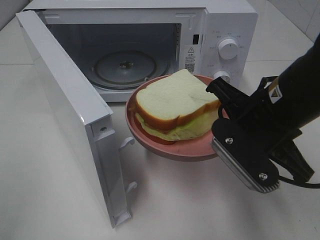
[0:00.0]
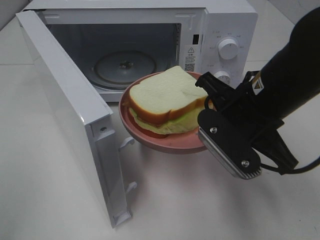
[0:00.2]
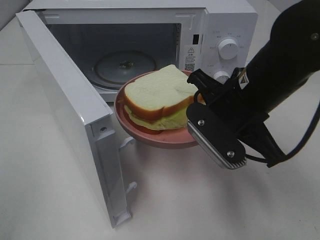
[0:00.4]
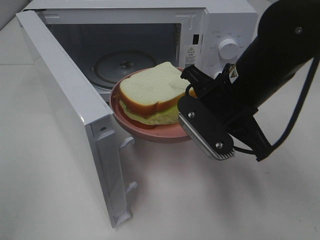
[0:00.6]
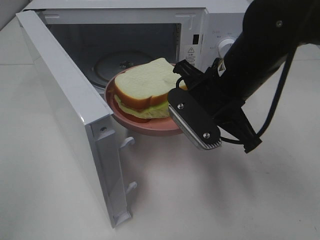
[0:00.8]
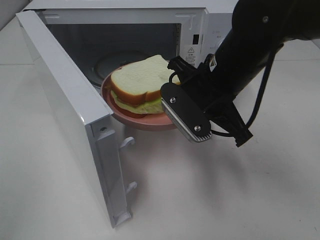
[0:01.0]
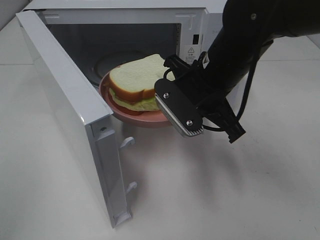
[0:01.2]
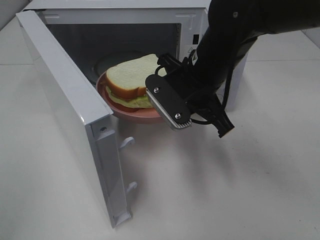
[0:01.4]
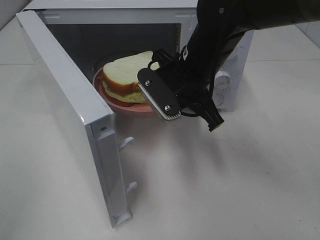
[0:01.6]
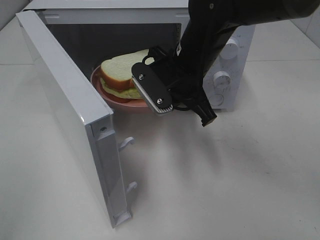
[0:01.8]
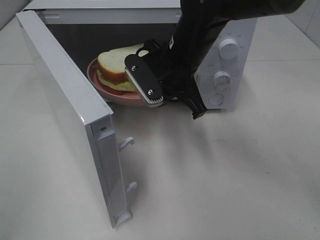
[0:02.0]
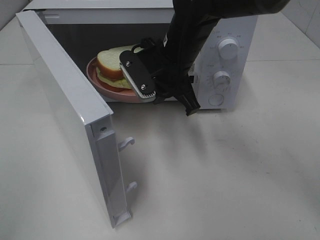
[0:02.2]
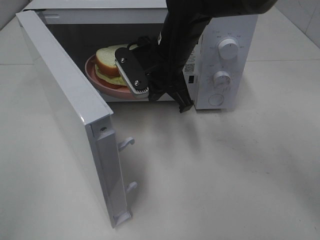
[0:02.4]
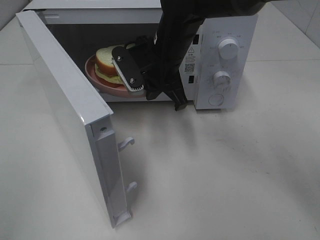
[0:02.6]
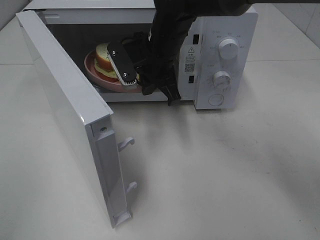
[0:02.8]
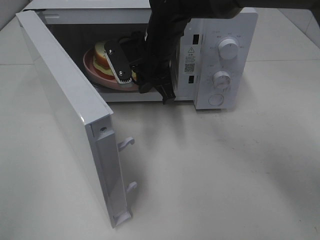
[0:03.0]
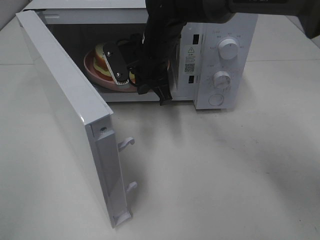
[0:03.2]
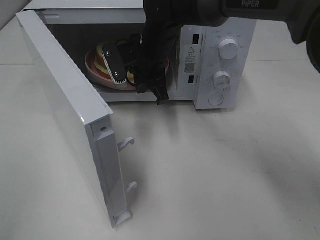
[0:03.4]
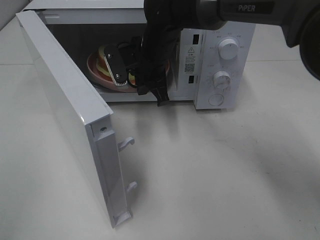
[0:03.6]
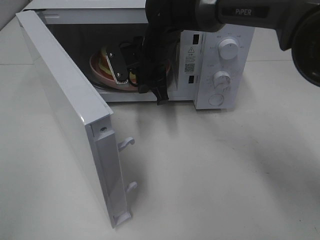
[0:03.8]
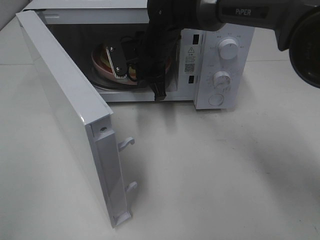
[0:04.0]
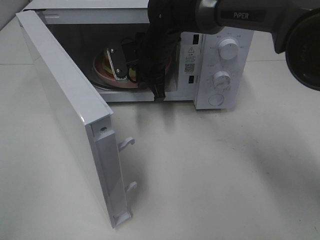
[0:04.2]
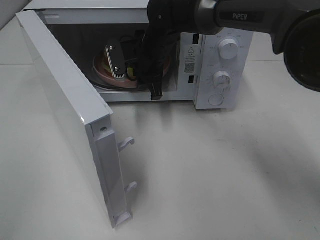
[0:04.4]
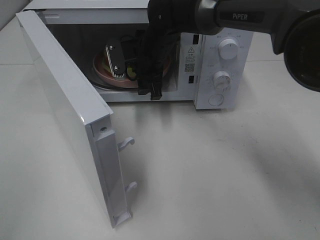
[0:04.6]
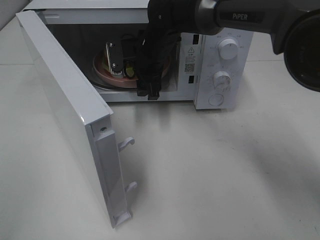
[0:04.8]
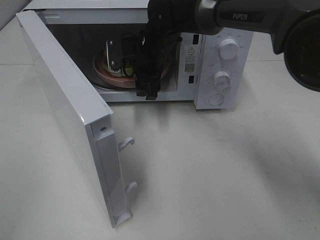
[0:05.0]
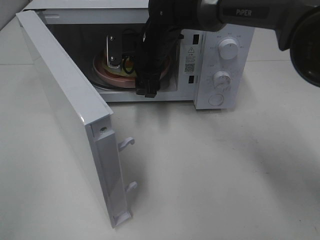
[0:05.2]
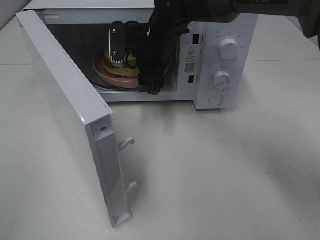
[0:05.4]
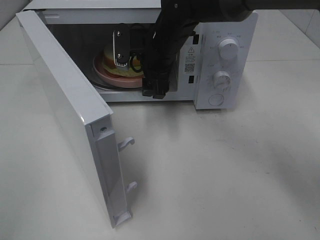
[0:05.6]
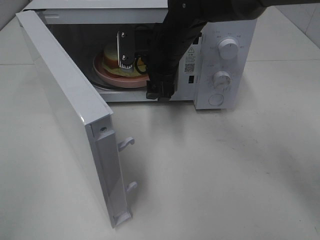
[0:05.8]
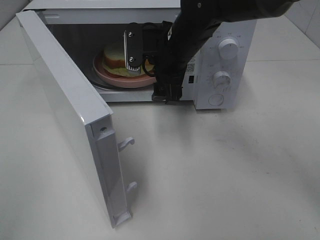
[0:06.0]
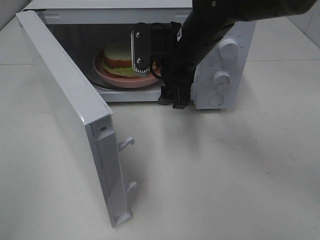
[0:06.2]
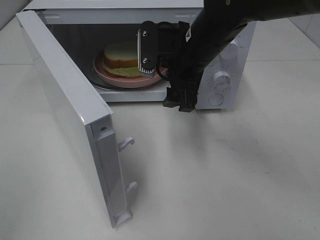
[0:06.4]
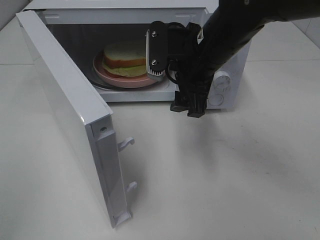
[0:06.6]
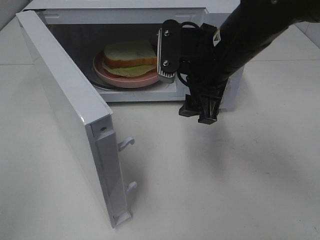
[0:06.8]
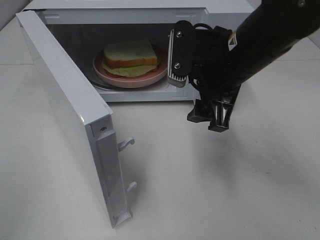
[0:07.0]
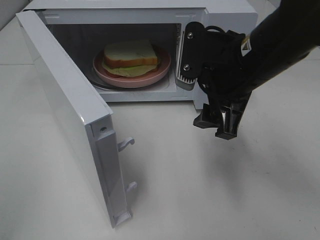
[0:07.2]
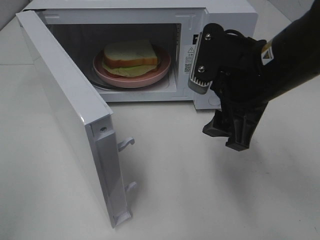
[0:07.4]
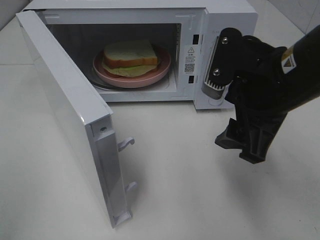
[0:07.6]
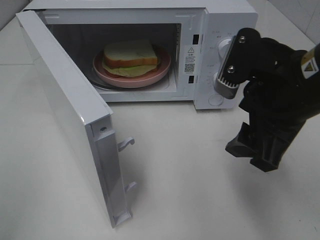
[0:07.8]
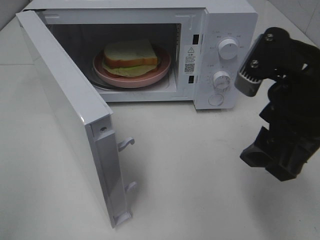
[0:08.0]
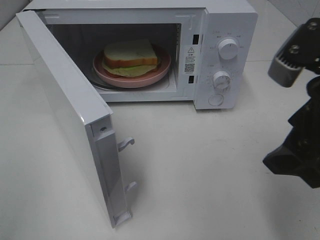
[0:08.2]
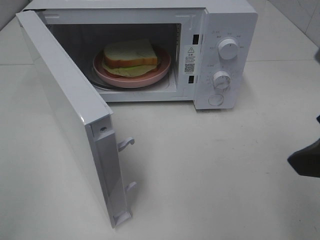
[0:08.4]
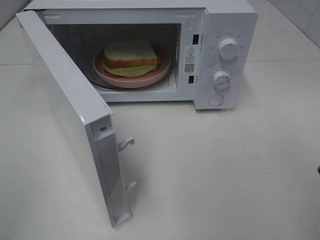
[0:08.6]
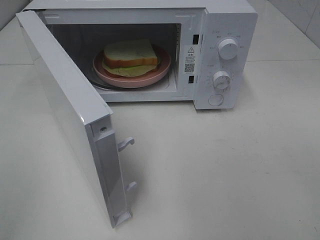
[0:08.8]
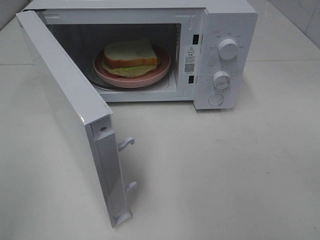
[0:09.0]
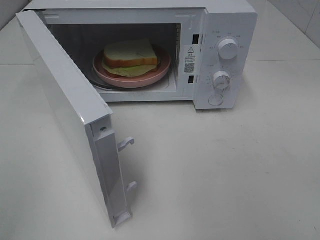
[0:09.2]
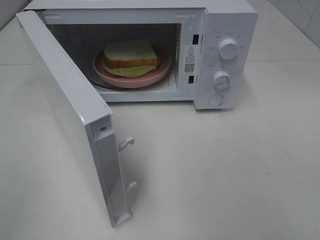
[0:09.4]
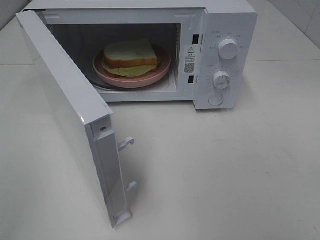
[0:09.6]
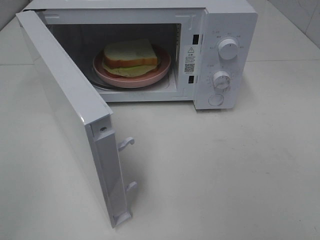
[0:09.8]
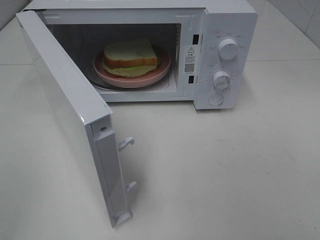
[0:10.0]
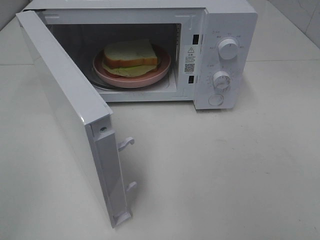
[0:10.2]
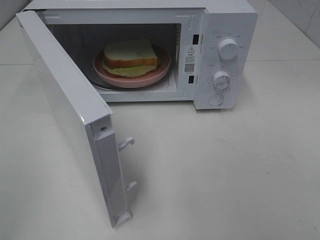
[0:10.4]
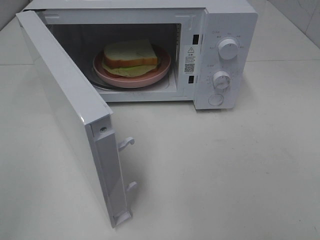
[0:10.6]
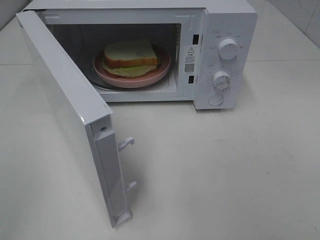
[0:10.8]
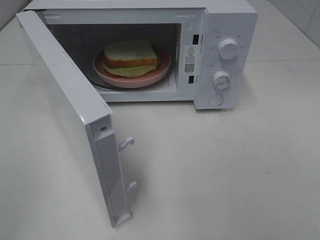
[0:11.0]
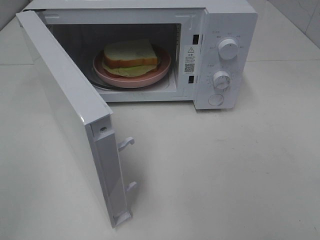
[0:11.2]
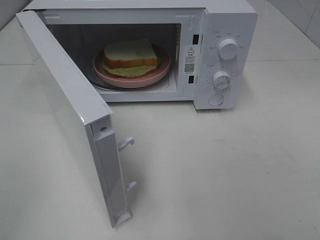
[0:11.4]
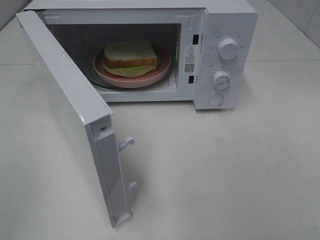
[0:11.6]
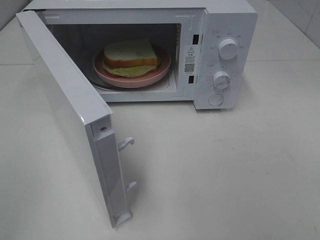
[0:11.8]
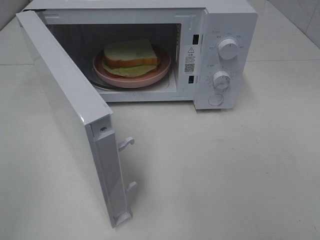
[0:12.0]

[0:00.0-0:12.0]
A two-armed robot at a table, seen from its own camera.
Task of the whole recording: Heat Sandwich.
Step, 0:00.0 to 0:05.4: Right hand: place the plate in the microwave.
0:00.0 to 0:01.6: The right gripper travels forward and to the left by some 15 cm.
0:01.6 to 0:03.0: The right gripper heads forward and to the left, covering some 10 cm.
0:03.0 to 0:04.4: The right gripper moves approximately 5 cm, and opens up.
0:04.4 to 0:06.0: The right gripper moves backward, roughly 5 cm, and opens.
0:06.0 to 0:07.6: The right gripper shifts some 20 cm backward and to the right.
0:07.6 to 0:09.0: The right gripper moves backward, to the right and upward, some 20 cm.
0:10.4 to 0:12.0: Neither gripper changes place.

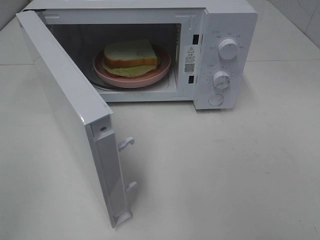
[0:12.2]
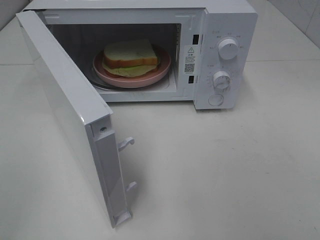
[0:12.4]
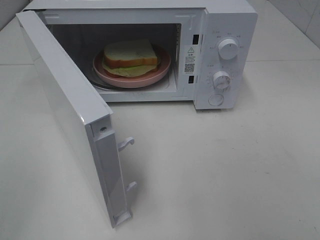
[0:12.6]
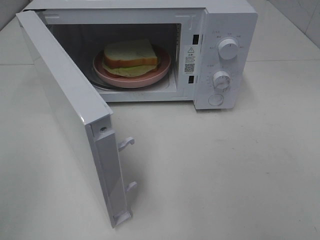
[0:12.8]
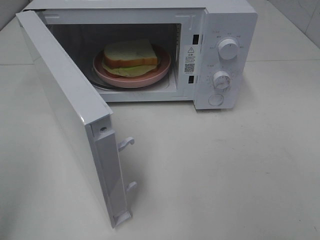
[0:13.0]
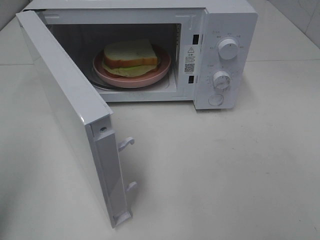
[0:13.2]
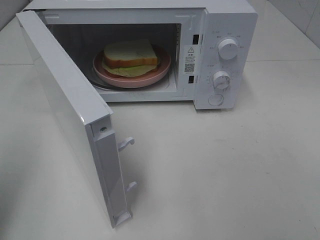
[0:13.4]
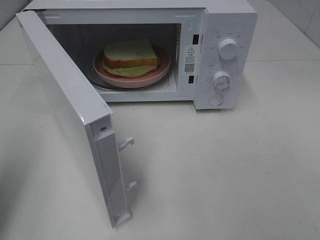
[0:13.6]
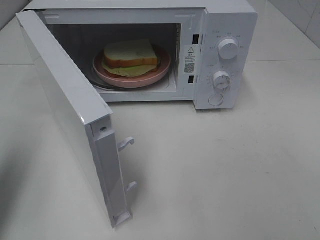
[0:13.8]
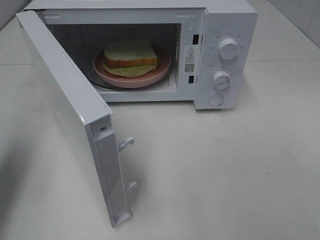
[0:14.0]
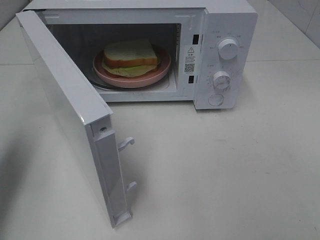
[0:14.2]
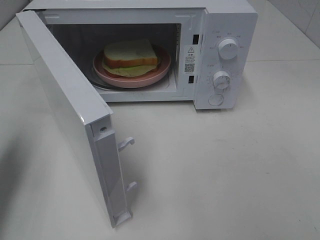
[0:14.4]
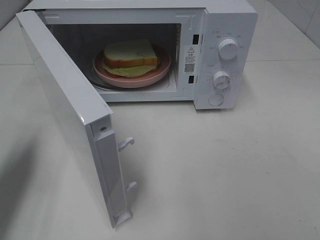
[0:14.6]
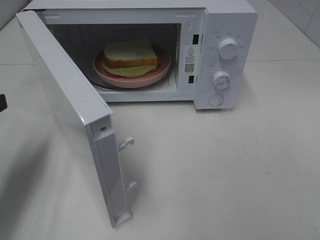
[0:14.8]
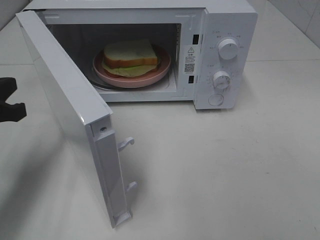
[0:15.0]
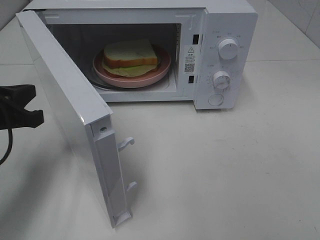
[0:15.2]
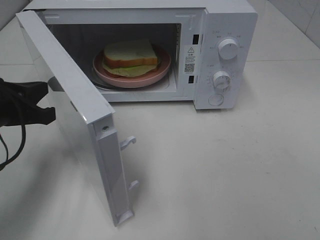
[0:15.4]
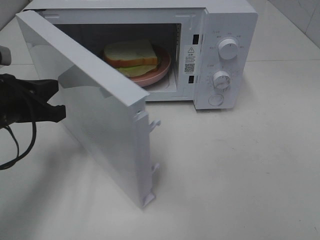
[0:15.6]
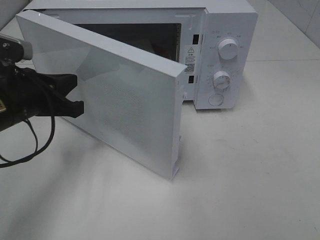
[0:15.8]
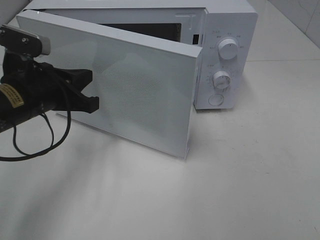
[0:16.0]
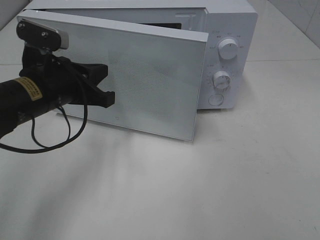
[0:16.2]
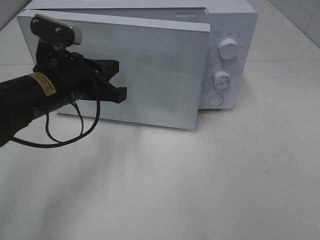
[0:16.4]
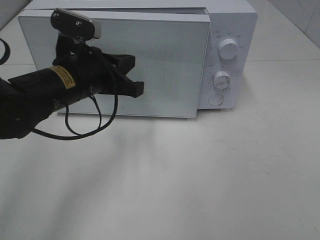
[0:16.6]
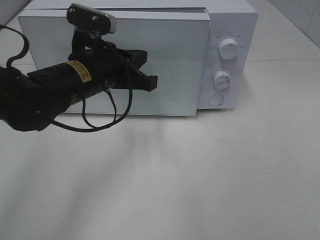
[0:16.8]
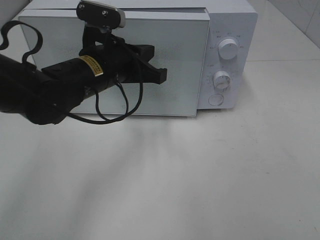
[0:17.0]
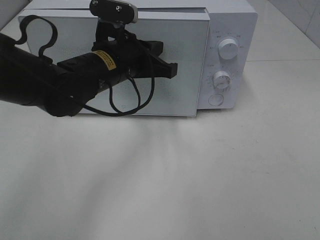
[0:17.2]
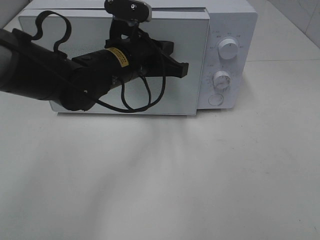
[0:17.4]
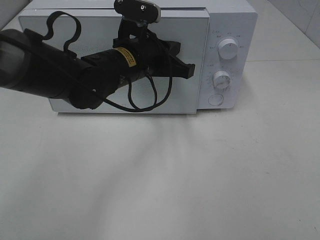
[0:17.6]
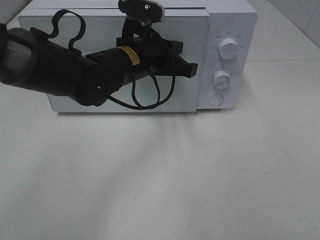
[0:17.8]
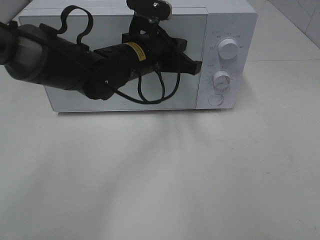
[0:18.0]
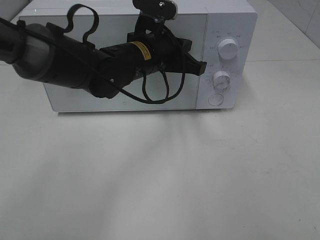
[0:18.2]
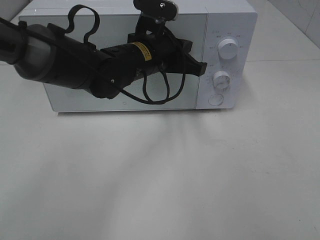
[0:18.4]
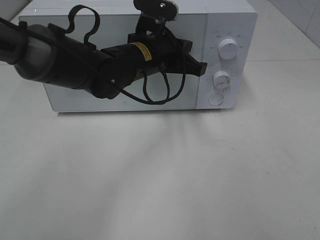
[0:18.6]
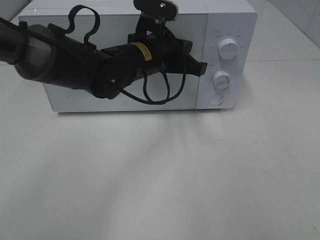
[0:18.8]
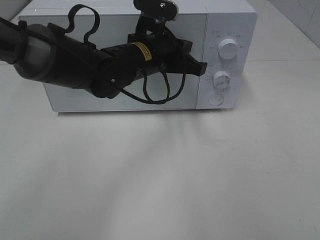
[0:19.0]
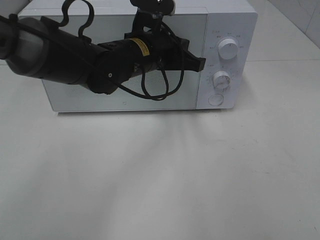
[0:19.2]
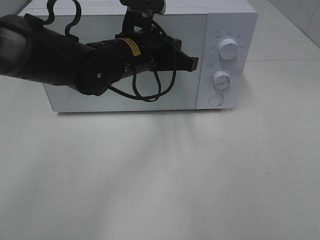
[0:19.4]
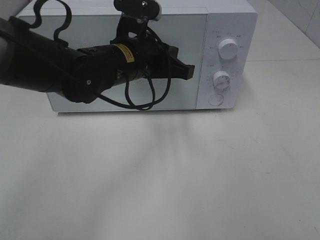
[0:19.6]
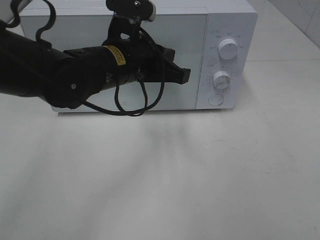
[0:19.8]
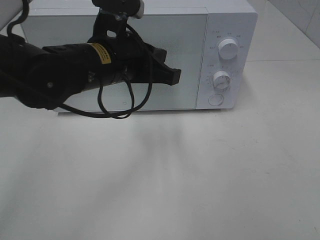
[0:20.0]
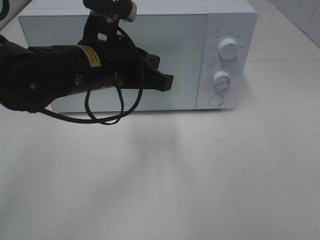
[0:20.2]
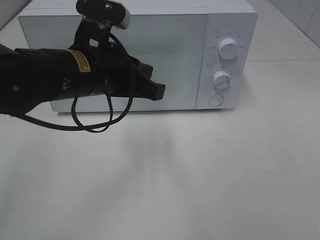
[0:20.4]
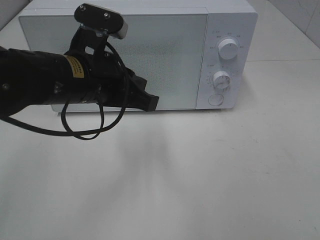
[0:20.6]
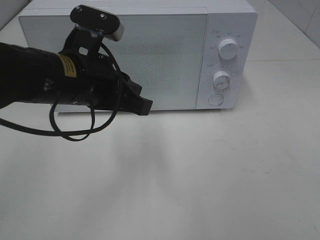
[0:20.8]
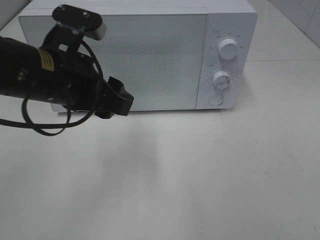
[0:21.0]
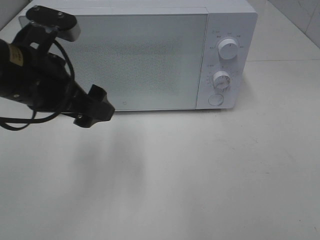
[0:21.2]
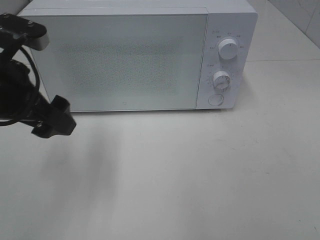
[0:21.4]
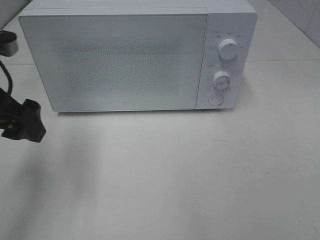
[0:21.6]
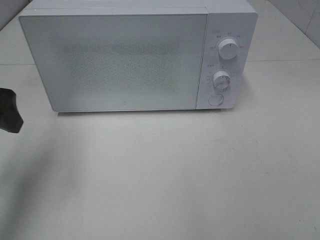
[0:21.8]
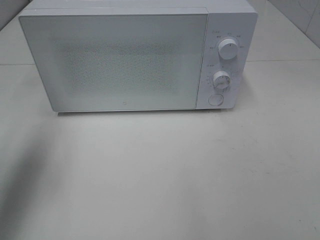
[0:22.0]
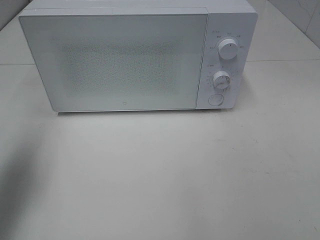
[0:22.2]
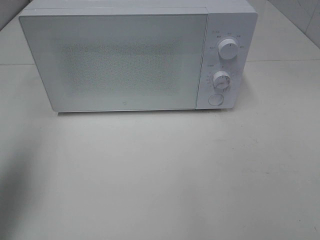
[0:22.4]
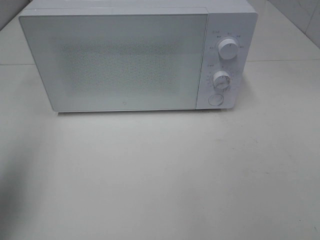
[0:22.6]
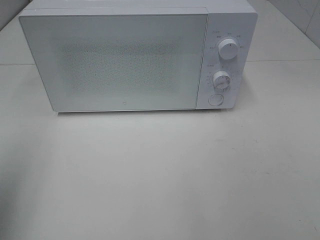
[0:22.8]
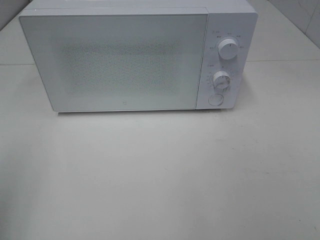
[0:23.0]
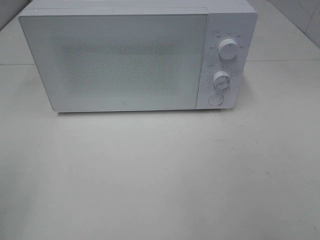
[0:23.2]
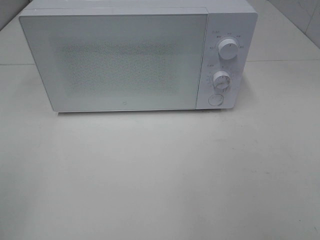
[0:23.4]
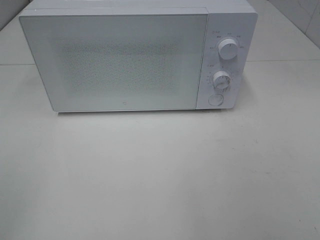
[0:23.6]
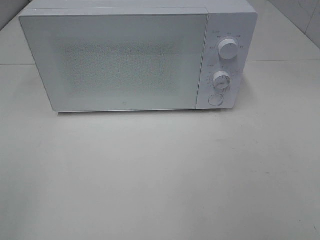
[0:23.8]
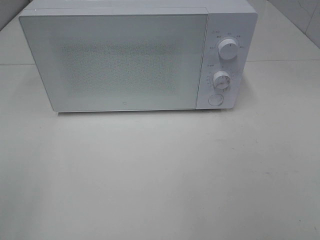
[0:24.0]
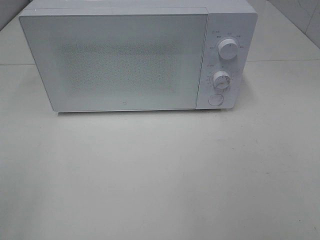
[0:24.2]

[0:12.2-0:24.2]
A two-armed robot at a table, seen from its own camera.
Task of the whole recording: Heat Sandwich.
Step, 0:12.2 to 0:19.8: Left hand: close the microwave door.
0:12.2 to 0:13.8: The left gripper goes about 15 cm forward, and closes up.
0:13.8 to 0:15.2: The left gripper is displaced downward, to the right and forward by some 15 cm.
0:15.2 to 0:16.6: The left gripper travels to the right and forward by about 15 cm.
0:16.6 to 0:18.2: The left gripper is displaced to the right and forward by approximately 10 cm.
0:18.2 to 0:19.8: The left gripper heads backward, covering about 5 cm.
0:19.8 to 0:21.2: The left gripper goes roughly 15 cm to the left and backward, and opens.
0:21.2 to 0:22.6: The left gripper heads to the left, backward and upward, covering some 20 cm.
0:22.6 to 0:24.2: The left gripper shifts some 15 cm backward.
